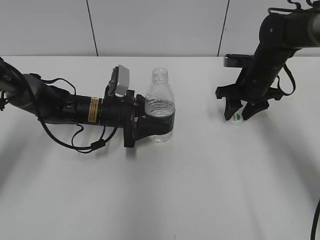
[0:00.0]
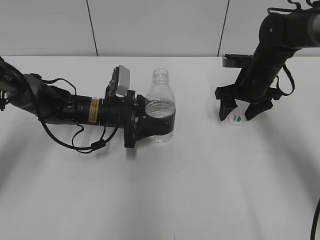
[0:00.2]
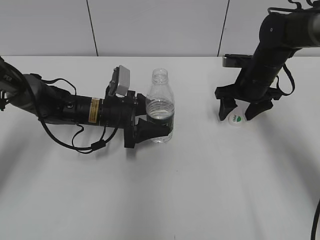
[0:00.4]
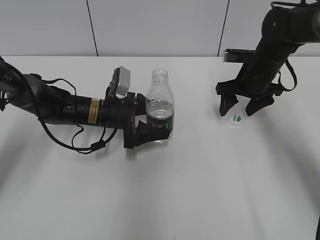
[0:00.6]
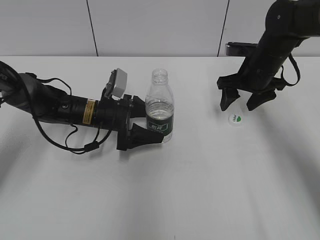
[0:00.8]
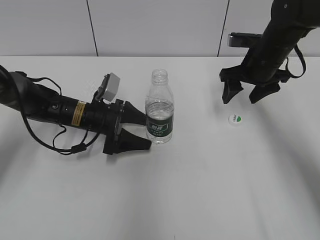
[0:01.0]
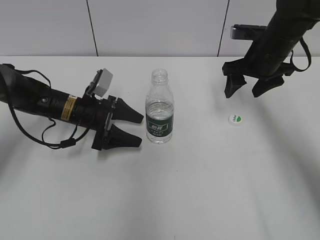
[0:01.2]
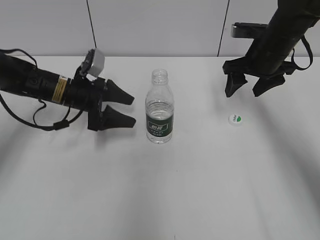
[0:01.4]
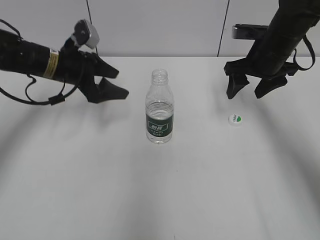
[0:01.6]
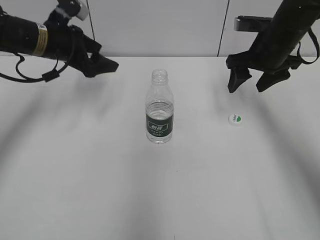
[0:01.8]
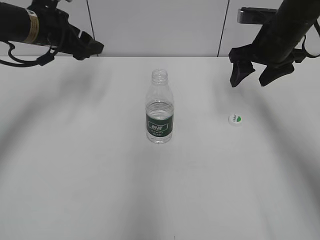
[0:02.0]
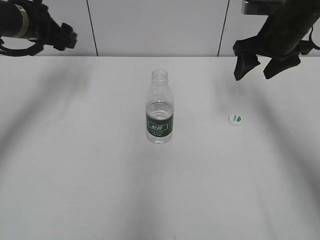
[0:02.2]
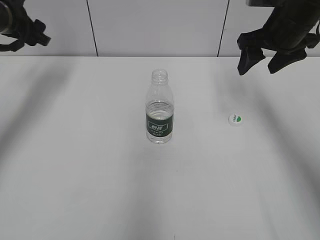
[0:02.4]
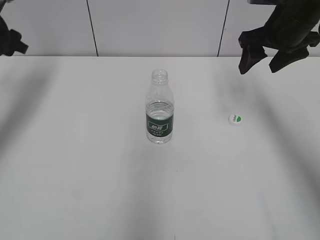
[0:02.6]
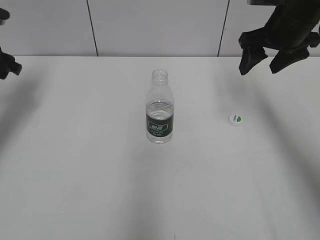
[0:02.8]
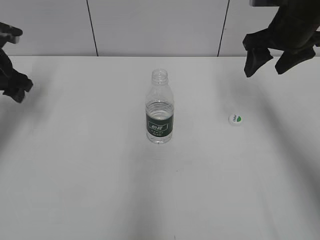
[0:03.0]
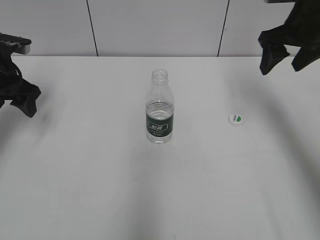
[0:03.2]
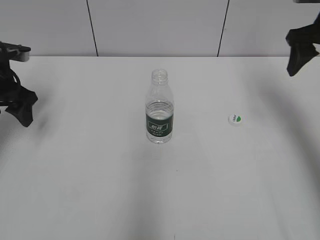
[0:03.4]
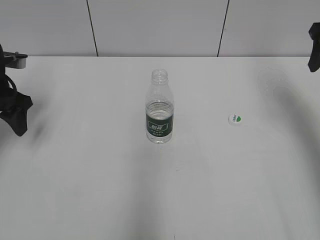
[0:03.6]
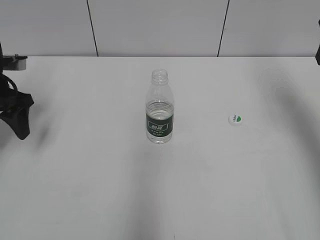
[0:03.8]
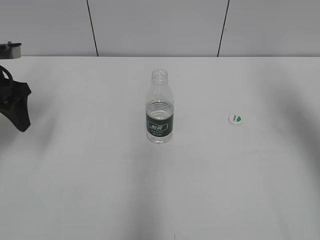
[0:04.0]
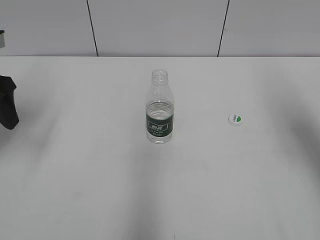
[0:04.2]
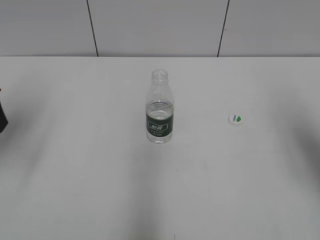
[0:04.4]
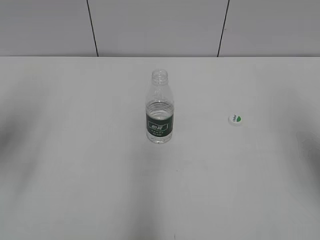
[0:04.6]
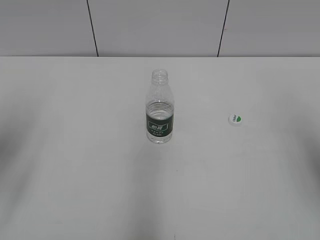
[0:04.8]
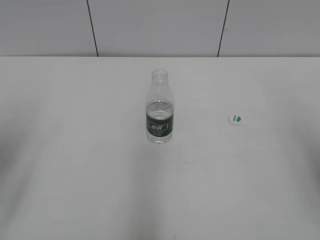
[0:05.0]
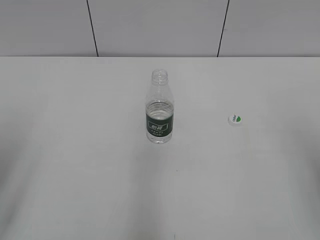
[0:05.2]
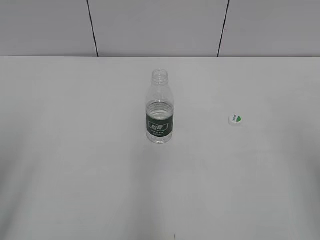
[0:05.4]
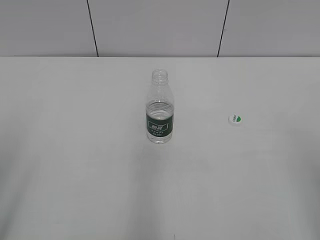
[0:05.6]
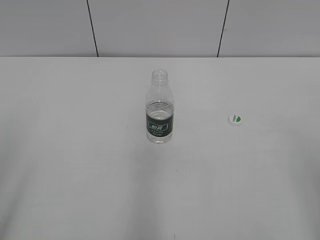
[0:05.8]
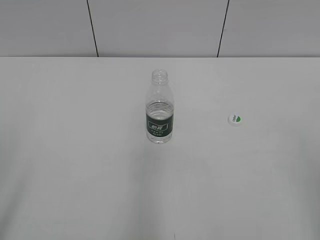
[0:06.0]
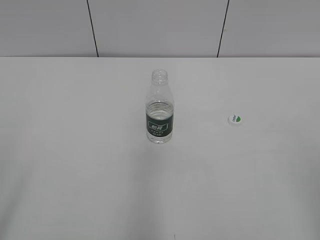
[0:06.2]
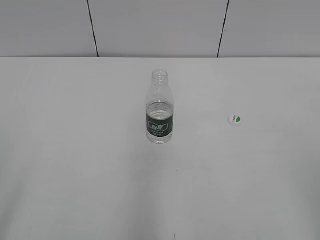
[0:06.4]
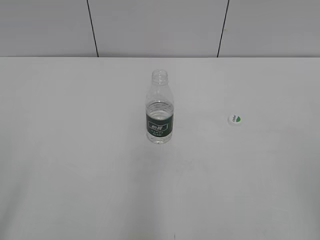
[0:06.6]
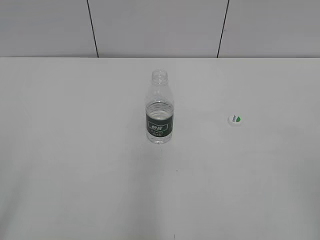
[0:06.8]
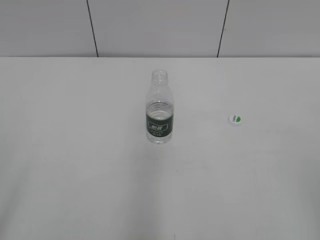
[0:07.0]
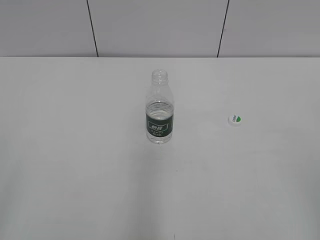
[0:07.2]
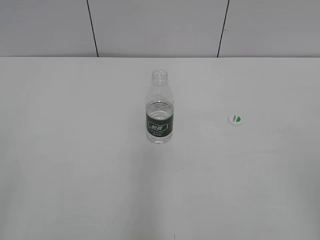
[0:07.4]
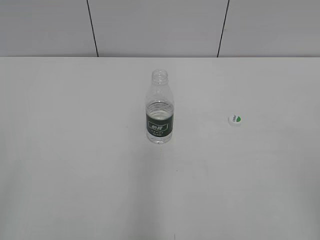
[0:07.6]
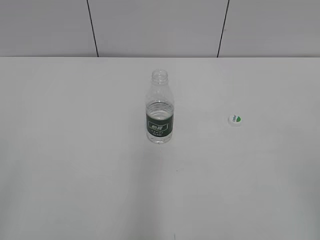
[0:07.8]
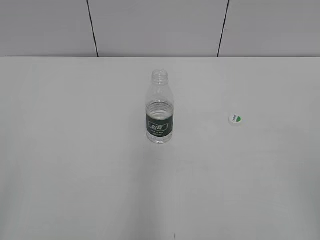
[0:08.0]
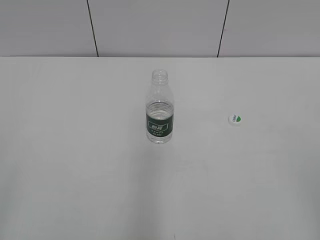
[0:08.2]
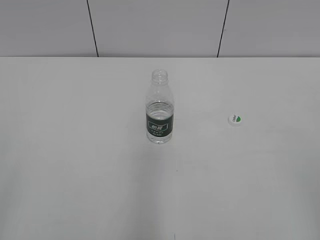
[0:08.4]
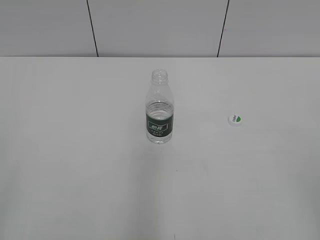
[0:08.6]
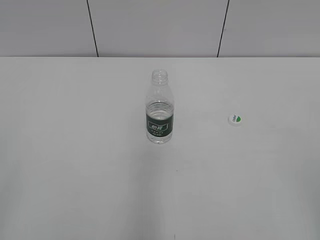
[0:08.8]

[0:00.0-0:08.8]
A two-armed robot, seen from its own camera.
Step, 0:00.4 to 0:00.8: Place the bottle on the table with the left gripper.
0:00.0 to 0:01.4: The left gripper moves to the left, roughly 5 cm, and opens up. The right gripper goes about 5 cm upward, and opens.
0:01.4 to 0:03.0: The right gripper is displaced upward by about 5 cm. Meanwhile the left gripper shifts roughly 20 cm to the left and upward.
0:03.0 to 0:04.4: The left gripper heads backward and upward, covering roughly 15 cm, while the right gripper shifts approximately 20 cm backward and to the right.
0:04.4 to 0:05.8: Both grippers move backward, some 20 cm.
0:07.4 to 0:08.8: Neither gripper changes place.

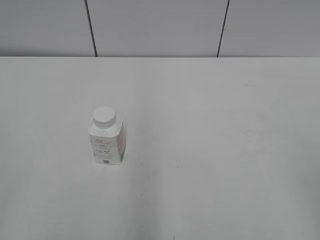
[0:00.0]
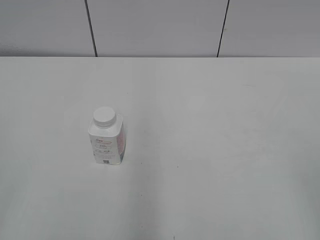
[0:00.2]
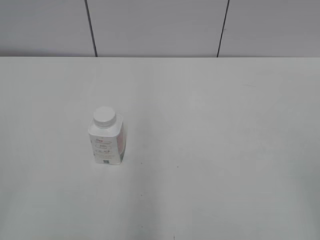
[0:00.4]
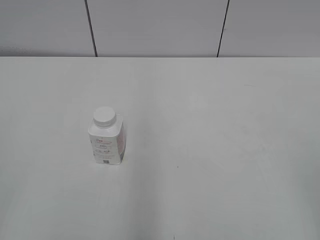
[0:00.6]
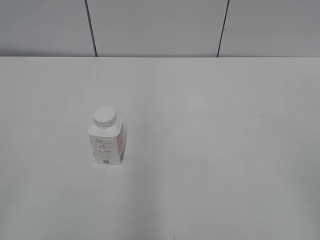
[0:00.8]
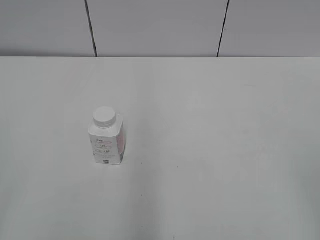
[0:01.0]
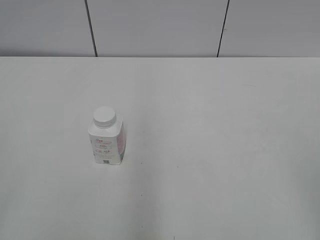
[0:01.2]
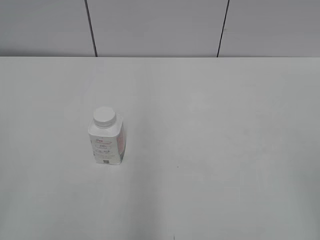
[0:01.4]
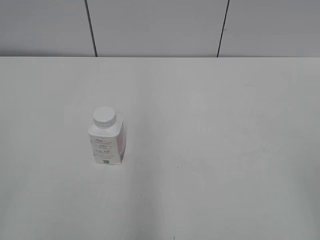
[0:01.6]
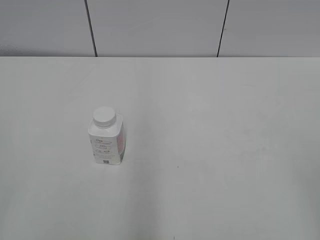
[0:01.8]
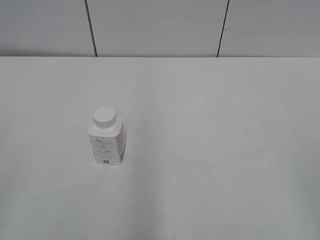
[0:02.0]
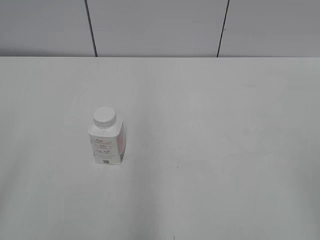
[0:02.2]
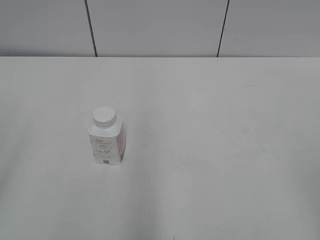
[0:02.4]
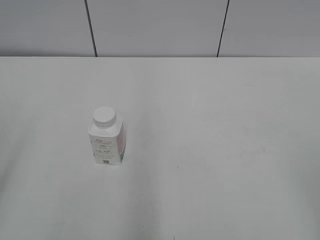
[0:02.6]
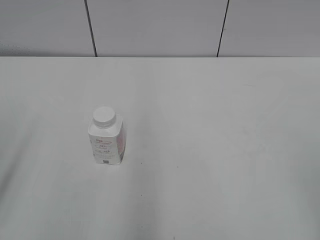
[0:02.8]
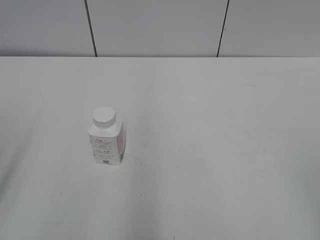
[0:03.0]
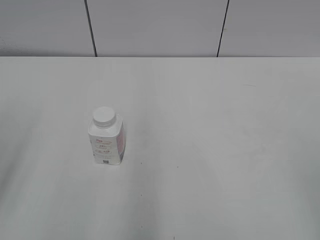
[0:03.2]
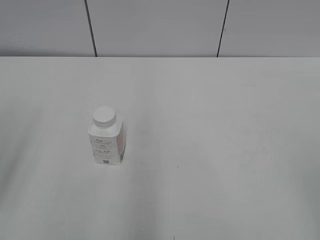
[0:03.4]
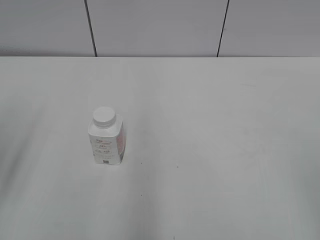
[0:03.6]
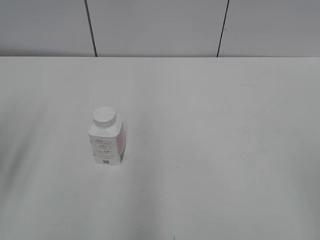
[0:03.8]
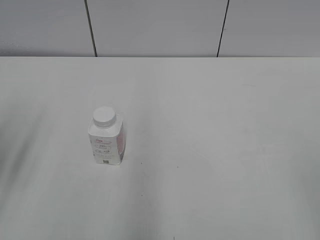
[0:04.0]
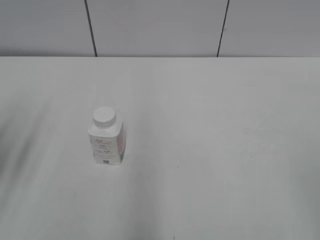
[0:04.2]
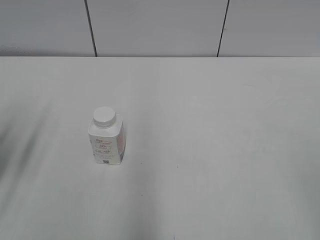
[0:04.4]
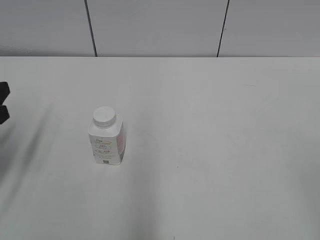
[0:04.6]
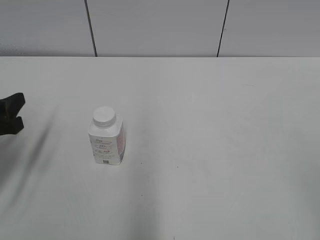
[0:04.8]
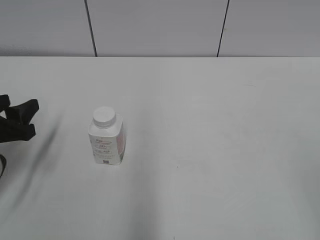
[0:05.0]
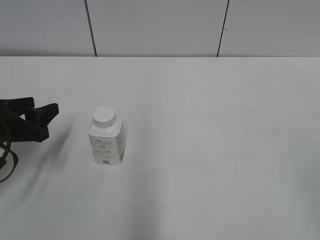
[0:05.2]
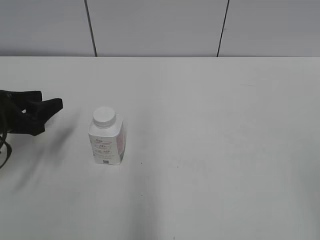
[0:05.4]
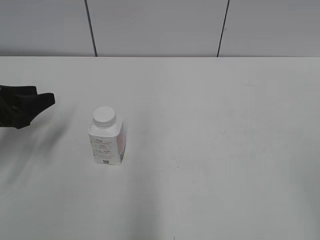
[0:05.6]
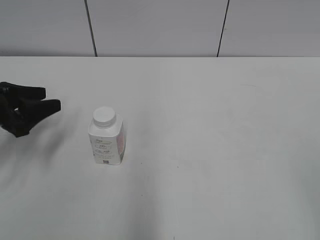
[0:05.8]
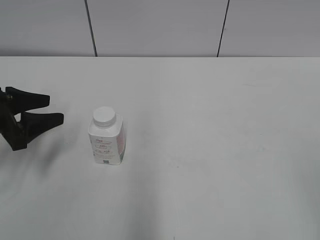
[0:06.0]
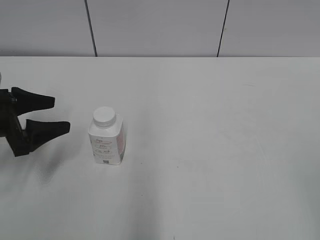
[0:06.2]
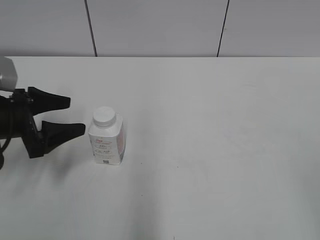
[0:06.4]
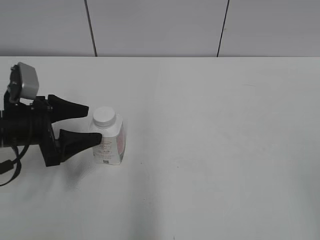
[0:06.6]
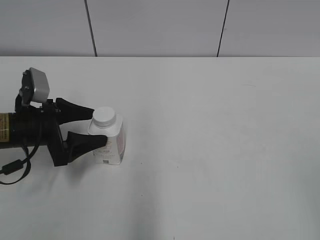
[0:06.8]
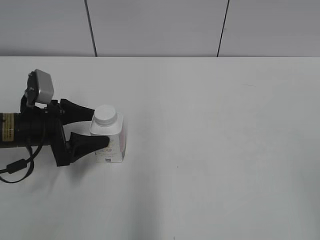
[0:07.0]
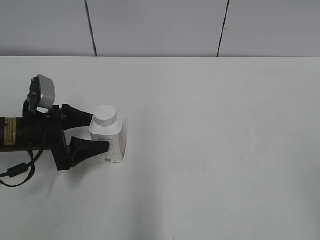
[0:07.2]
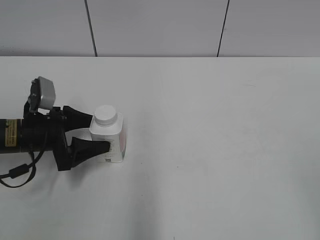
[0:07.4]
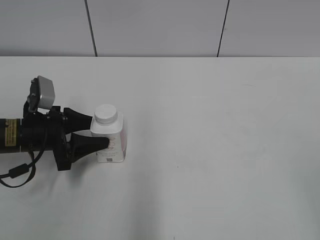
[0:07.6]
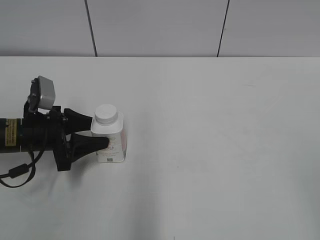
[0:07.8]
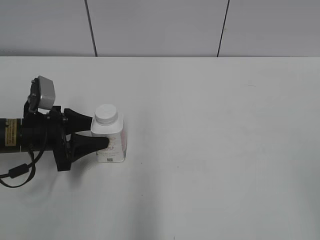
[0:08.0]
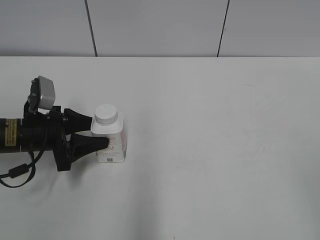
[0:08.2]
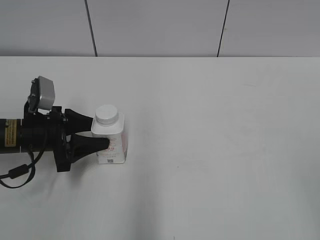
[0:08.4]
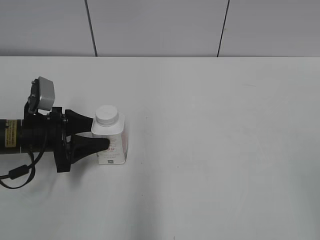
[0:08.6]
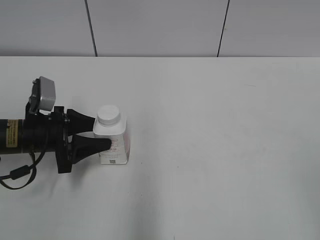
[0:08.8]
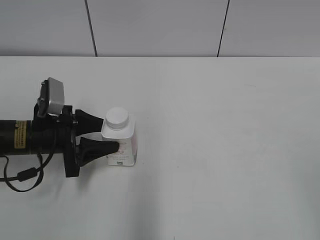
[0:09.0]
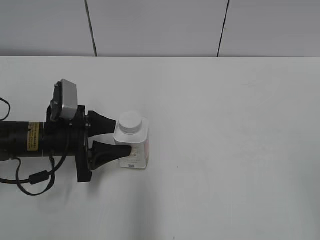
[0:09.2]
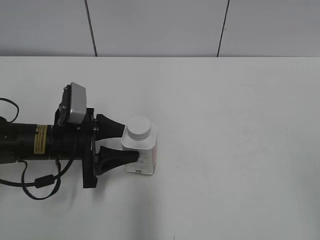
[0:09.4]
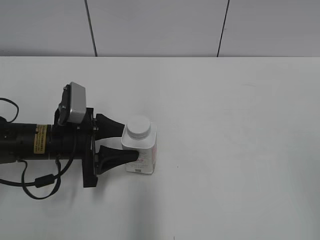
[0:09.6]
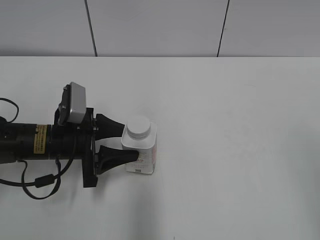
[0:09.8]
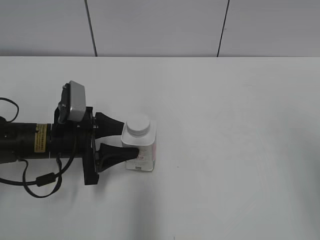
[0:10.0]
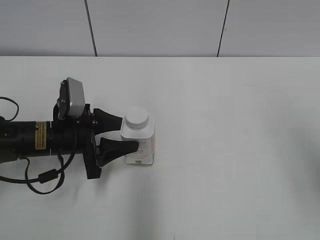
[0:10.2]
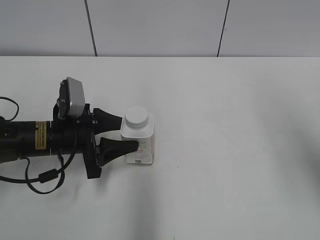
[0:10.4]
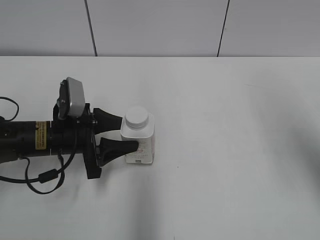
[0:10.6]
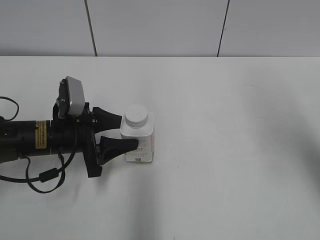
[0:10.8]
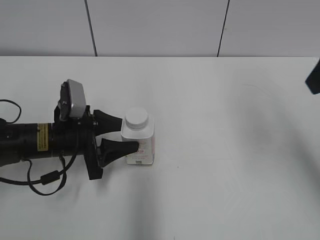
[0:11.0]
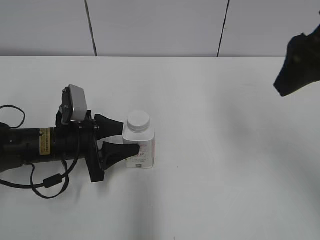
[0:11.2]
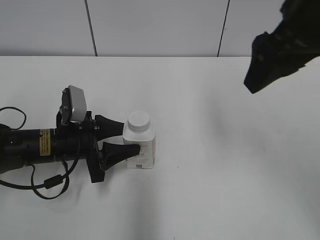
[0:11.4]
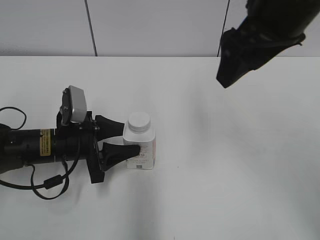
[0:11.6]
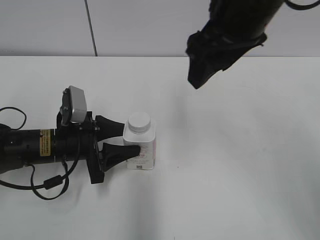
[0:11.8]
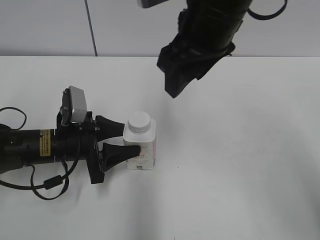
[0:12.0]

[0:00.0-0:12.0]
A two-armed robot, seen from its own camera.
Step, 0:00.0 to 0:08.4: Grasp the bottle and move it to the center of the table with the left gripper.
Step, 0:08.6 to 0:11.2: Lift the bottle and move it to the center of the table with the left gripper.
0:03.0 to 0:04.4: The left gripper travels forward and downward by about 10 cm.
0:04.4 to 0:06.0: The left gripper is displaced forward and downward by about 10 cm.
0:06.0 to 0:07.6: The left gripper goes approximately 5 cm to the right.
0:07.6 to 0:09.0: The grippers move only a little.
0:09.0 to 0:10.4: The right gripper moves forward and upward, some 20 cm.
0:10.4 to 0:12.0: The right gripper moves to the left and forward, approximately 25 cm.

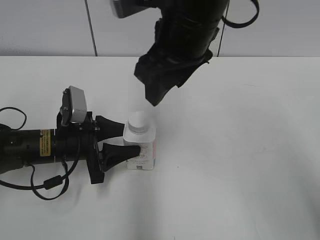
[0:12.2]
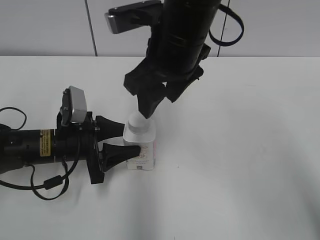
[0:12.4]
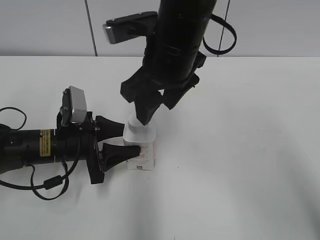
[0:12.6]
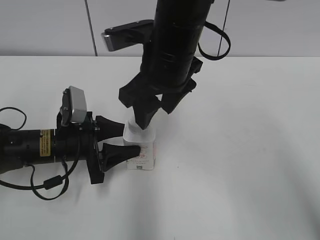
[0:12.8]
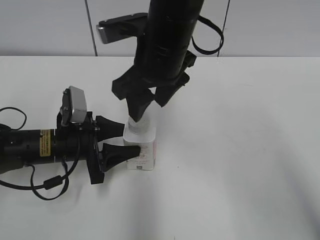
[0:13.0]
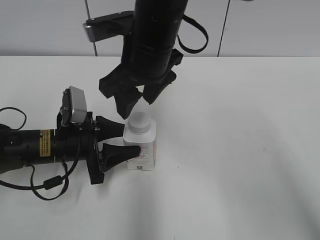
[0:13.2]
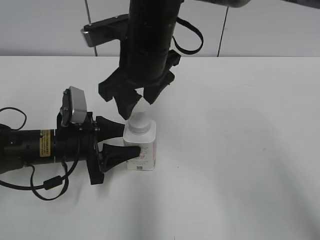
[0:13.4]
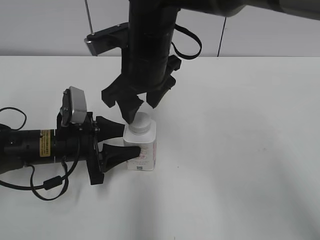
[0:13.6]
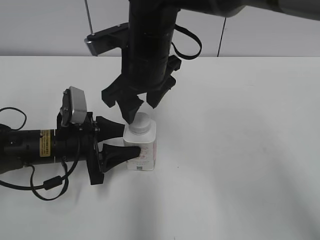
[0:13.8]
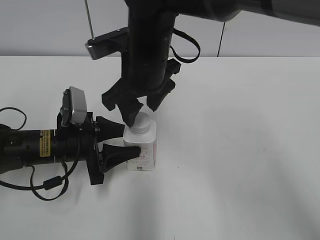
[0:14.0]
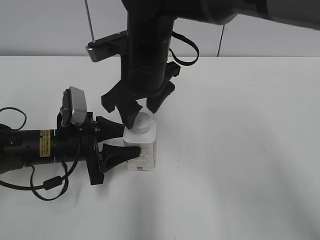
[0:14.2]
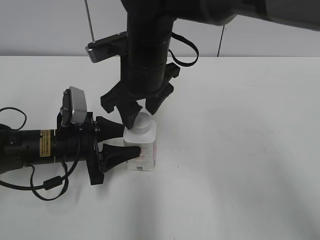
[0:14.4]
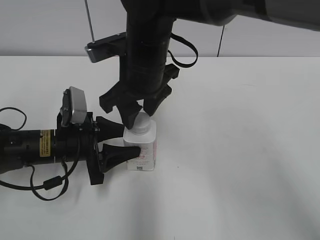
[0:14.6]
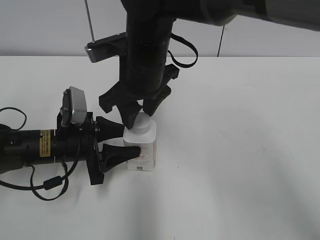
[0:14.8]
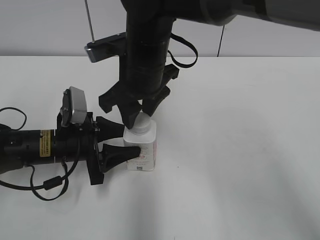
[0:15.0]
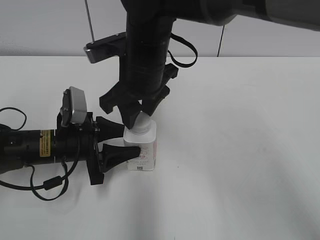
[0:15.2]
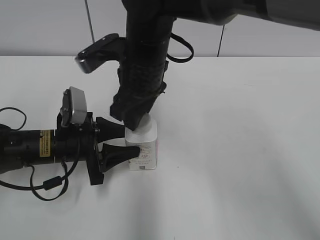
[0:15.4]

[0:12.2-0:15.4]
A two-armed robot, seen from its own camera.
0:12.2 to 0:13.8: The right gripper travels downward and to the left by about 10 cm.
0:13.8 to 0:15.4: The right gripper closes.
